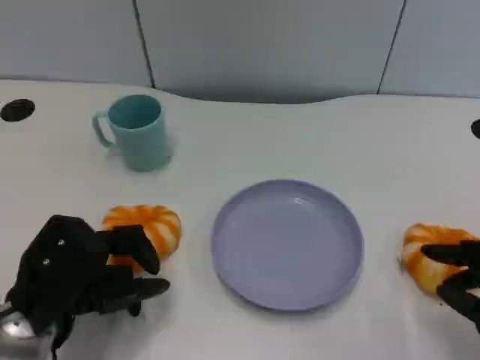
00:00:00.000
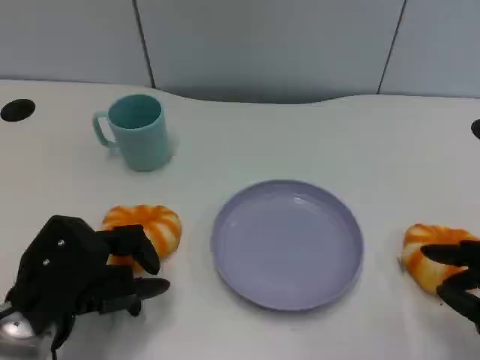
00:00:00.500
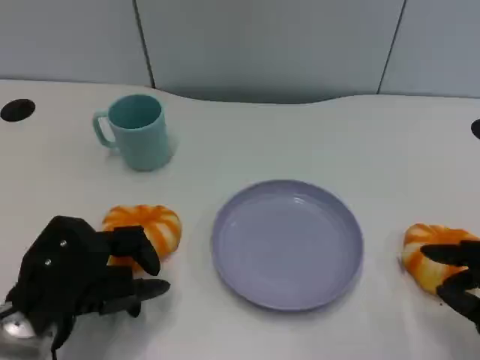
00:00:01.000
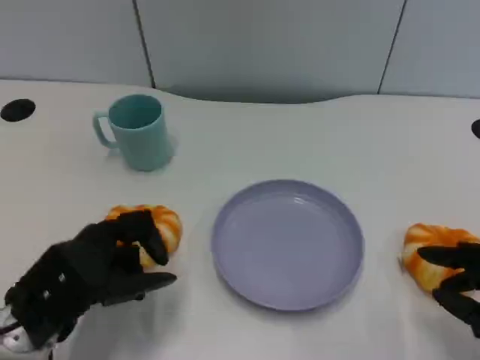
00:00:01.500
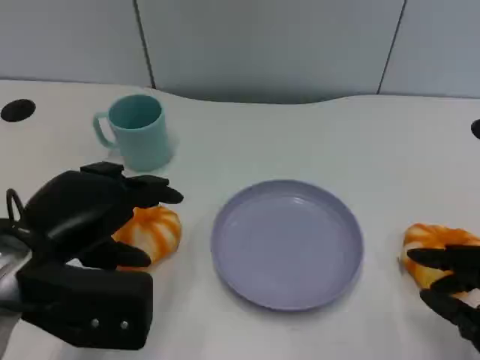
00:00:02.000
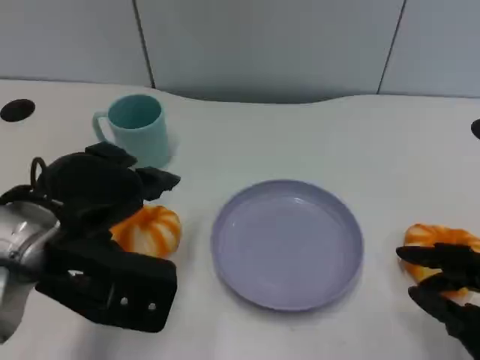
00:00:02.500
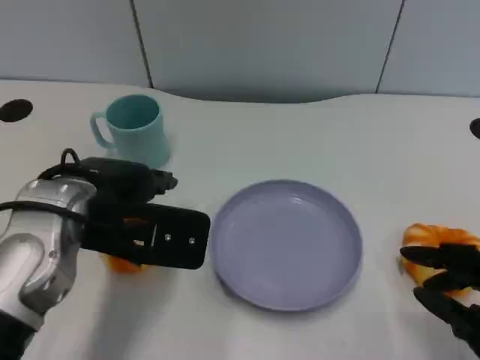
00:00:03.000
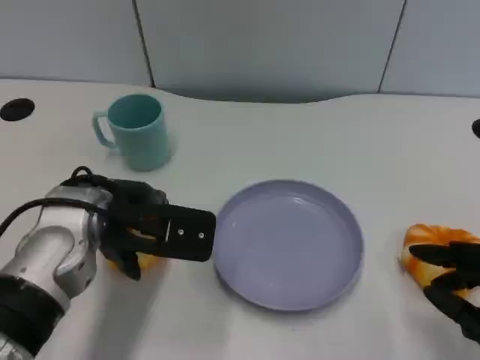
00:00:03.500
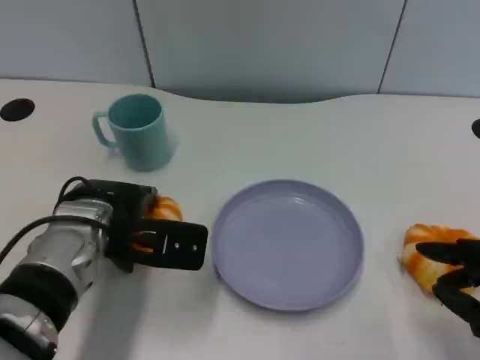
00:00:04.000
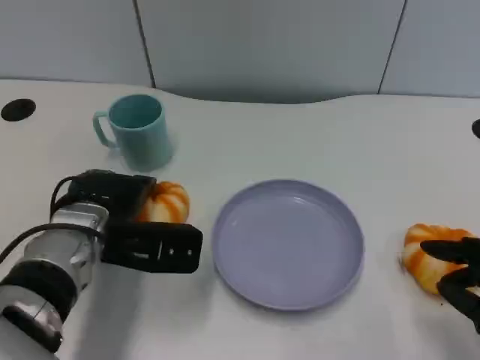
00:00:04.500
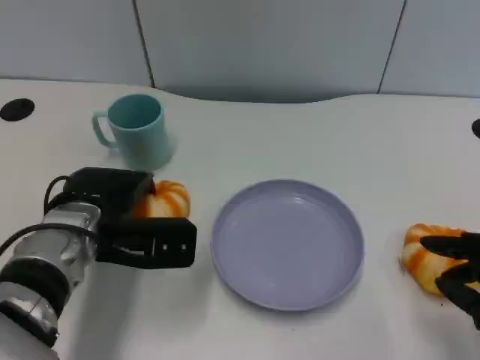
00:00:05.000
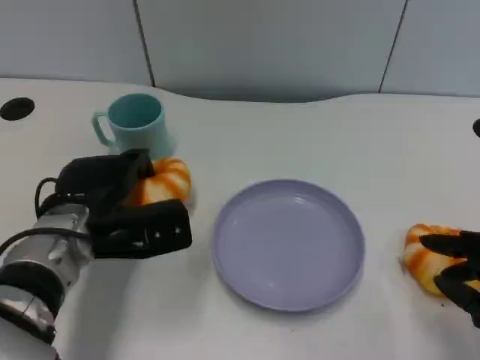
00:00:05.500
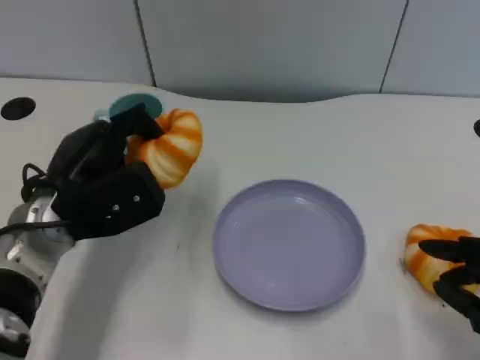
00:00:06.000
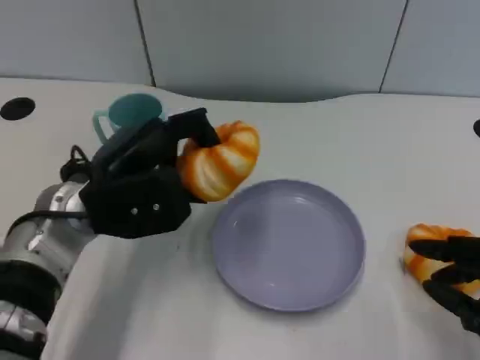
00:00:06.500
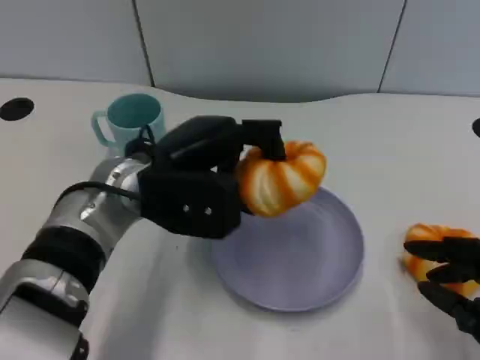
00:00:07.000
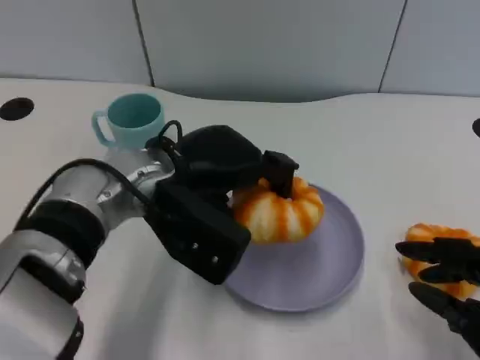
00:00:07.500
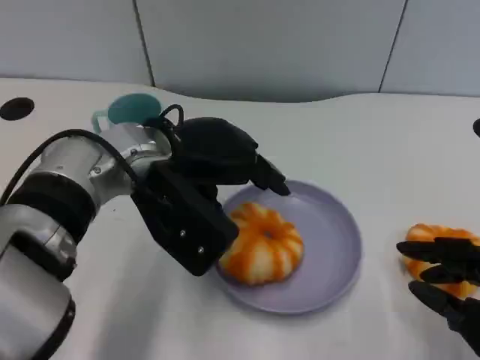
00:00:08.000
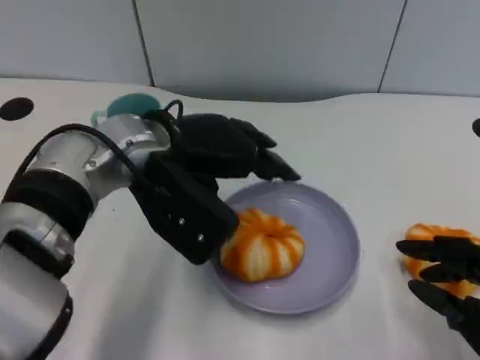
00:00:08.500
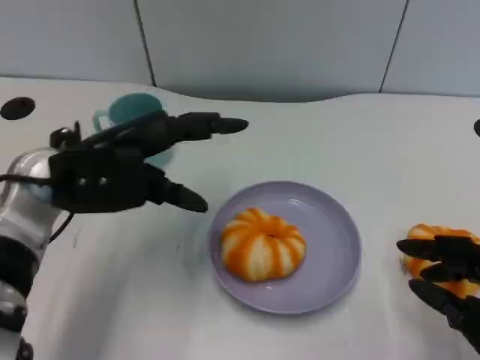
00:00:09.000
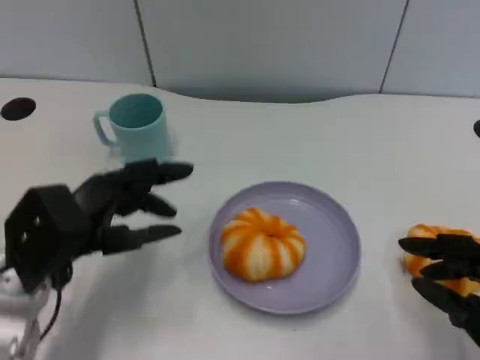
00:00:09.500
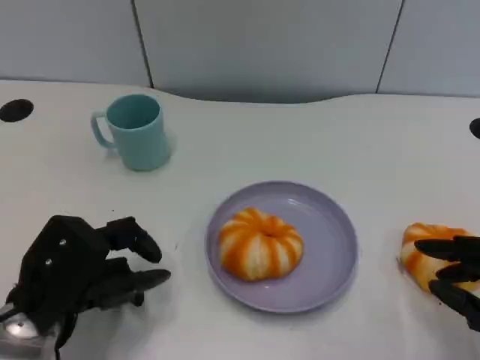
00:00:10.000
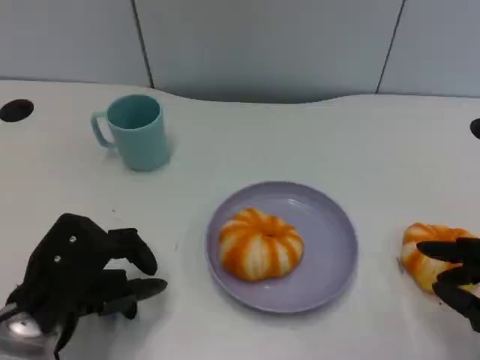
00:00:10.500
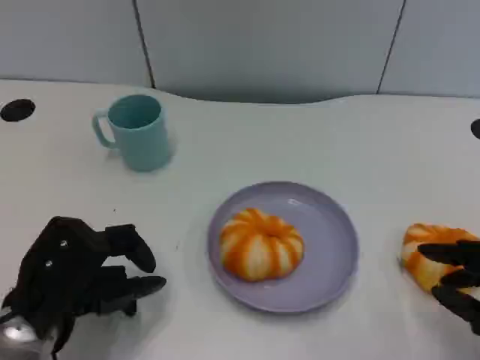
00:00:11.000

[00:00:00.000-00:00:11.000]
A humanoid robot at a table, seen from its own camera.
Task of the whole recording: Grasp the bread from the table and place it into the plate.
00:00:00.000 to 00:00:02.000: The left hand goes about 10 cm upward.
00:00:02.000 to 00:00:03.500: The left hand goes roughly 10 cm forward and to the right.
00:00:03.500 to 00:00:05.500: The left hand heads downward, covering about 5 cm.
00:00:05.500 to 00:00:07.500: The left hand moves to the right and upward, about 10 cm.
00:00:07.500 to 00:00:09.000: The left hand shifts roughly 10 cm to the left.
00:00:09.000 to 00:00:11.000: The left hand shifts roughly 15 cm backward and downward.
